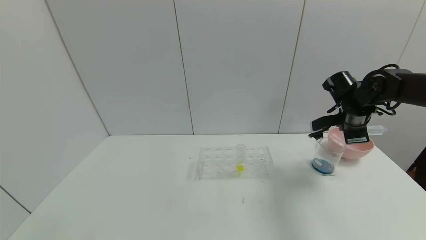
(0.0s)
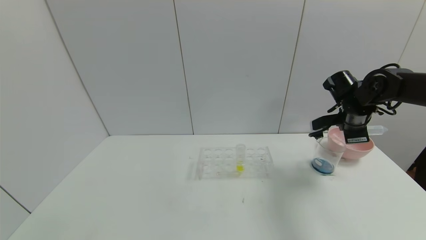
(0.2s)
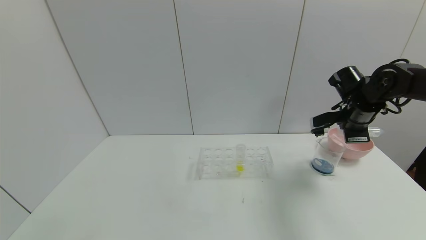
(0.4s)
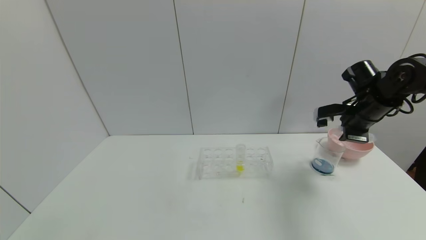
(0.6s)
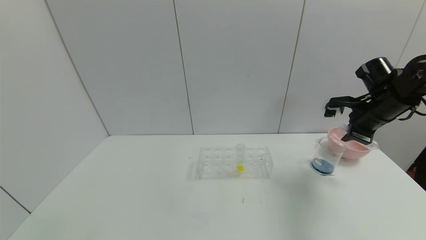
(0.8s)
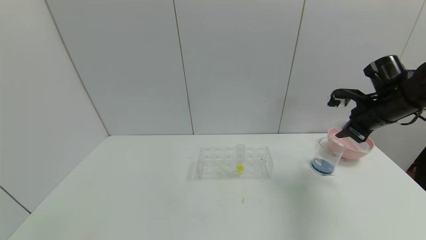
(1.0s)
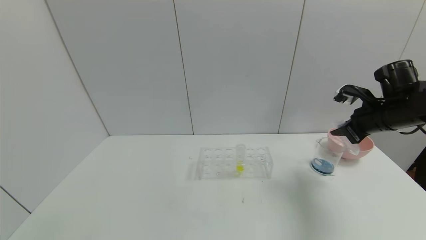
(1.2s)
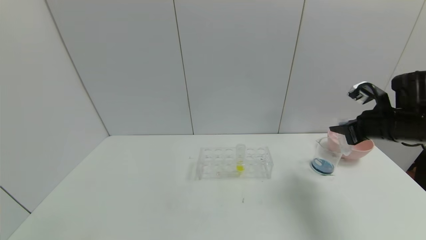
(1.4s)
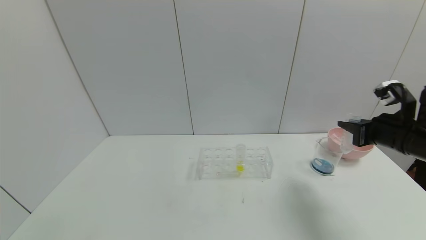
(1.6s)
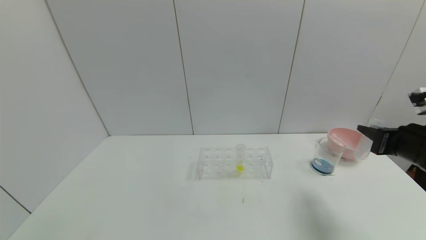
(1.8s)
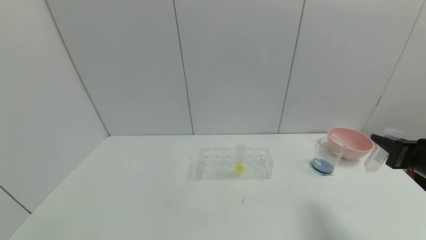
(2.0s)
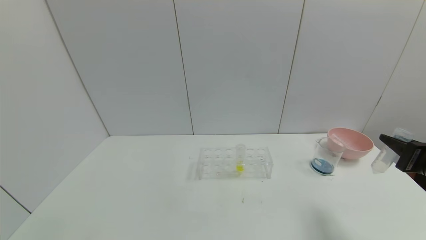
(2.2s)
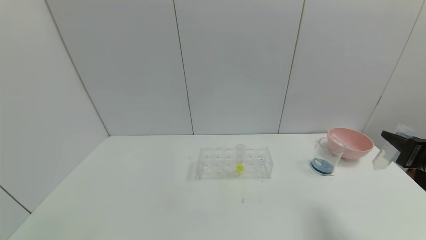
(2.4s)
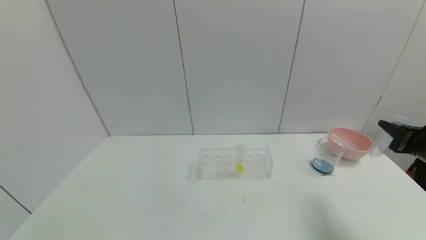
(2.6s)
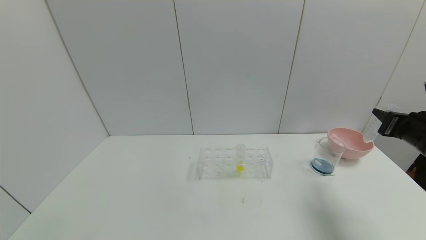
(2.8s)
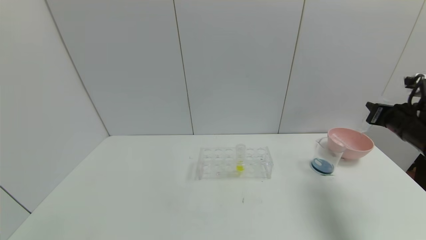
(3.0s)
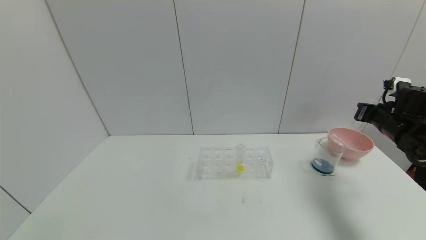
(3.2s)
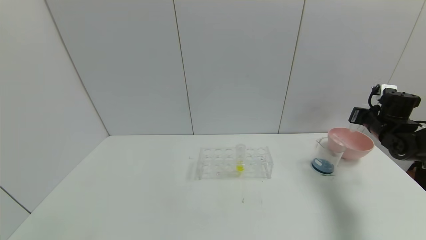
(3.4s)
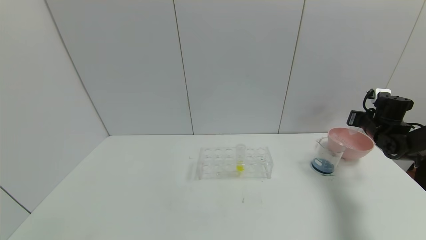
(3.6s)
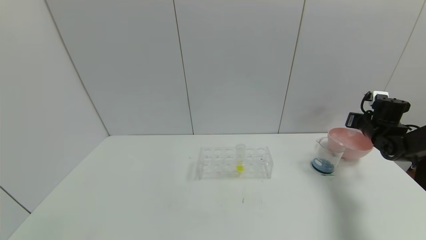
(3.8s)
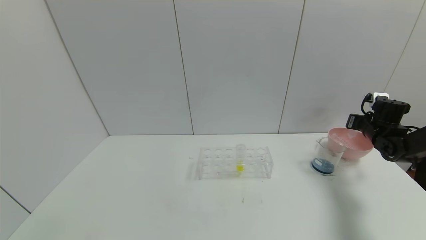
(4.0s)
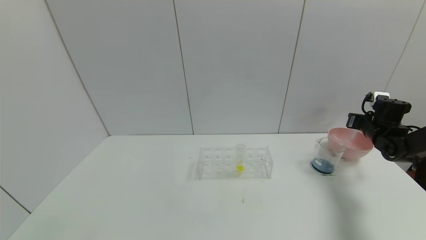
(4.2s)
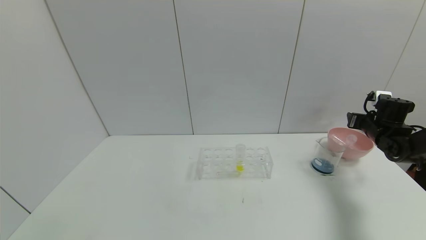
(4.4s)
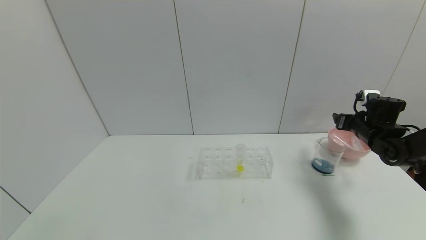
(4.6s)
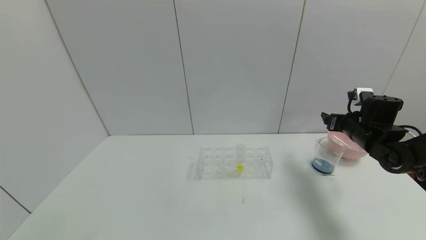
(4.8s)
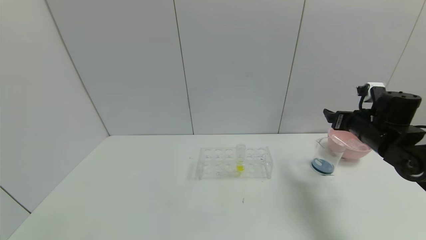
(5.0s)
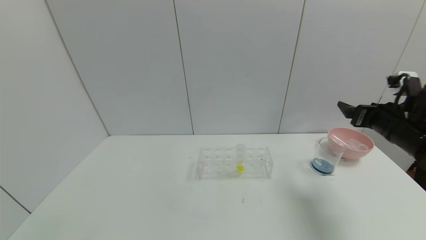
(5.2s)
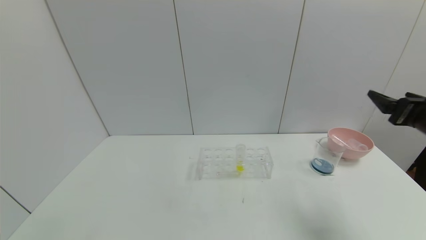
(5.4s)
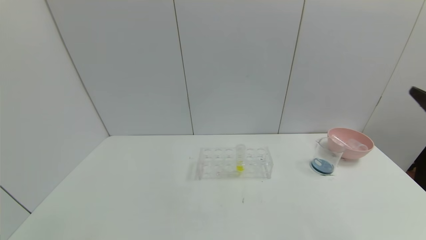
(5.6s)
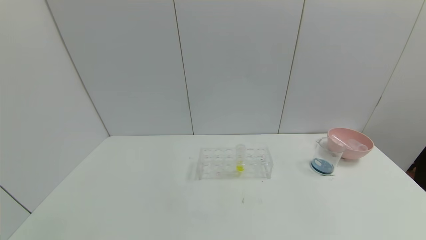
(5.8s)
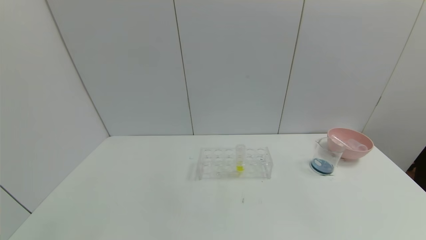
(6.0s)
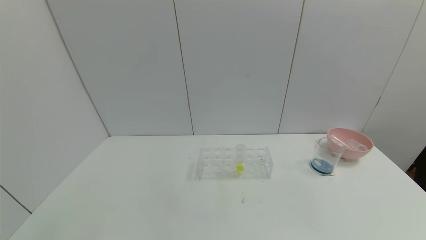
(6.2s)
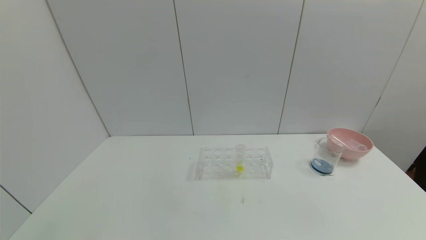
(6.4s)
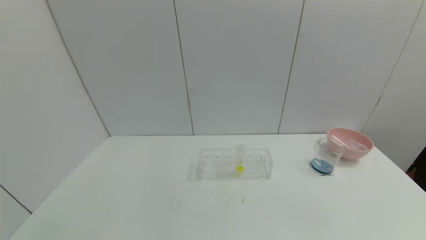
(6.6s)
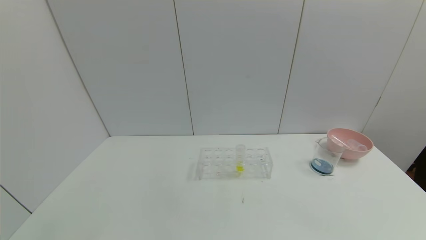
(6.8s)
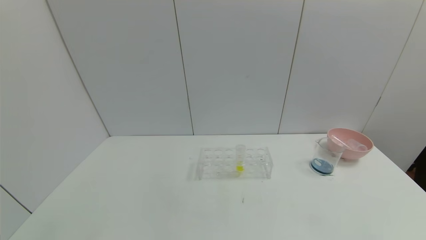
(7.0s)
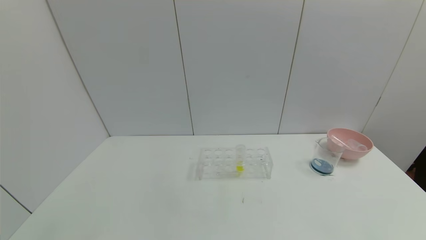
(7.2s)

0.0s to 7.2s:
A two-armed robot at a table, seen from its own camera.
Task of the whole recording: pick up the test tube with red pigment and the test tube with blue pigment by grippers and pour them into the container.
Step, 0.2s to 4.6s: Place the test tube into the bowl with the right gripper.
0.0s to 1.4s: The right gripper travels backward by roughly 10 cm.
1.4s to 2.8s: The right gripper shifts approximately 5 cm backward.
2.8s to 4.4s: The right gripper shifts about 20 cm forward and downward, and opens up.
4.4s to 5.8s: The right gripper shifts some 35 cm backward.

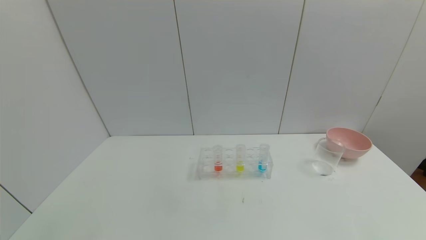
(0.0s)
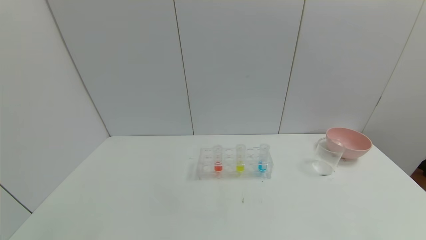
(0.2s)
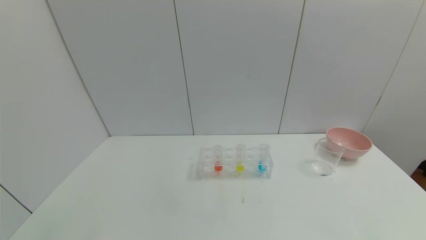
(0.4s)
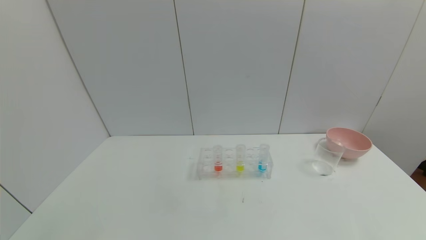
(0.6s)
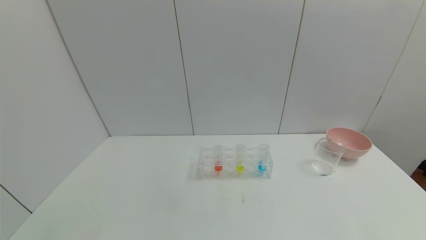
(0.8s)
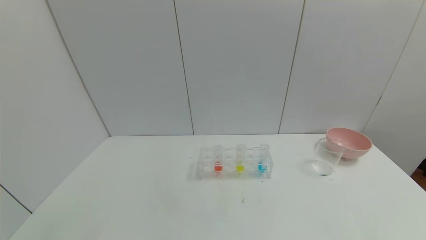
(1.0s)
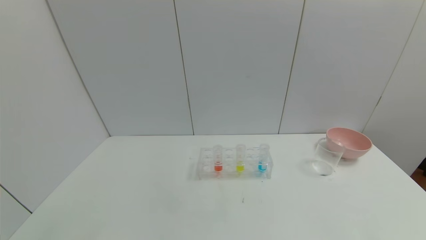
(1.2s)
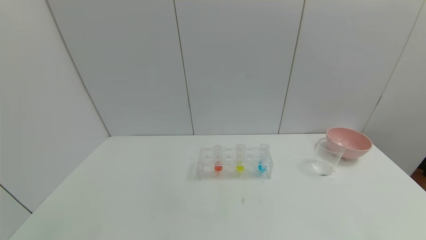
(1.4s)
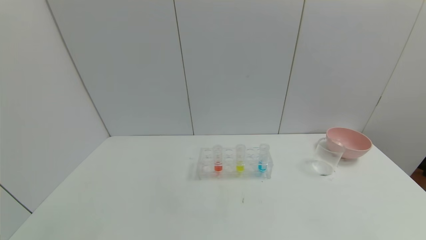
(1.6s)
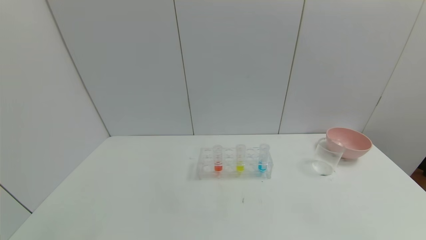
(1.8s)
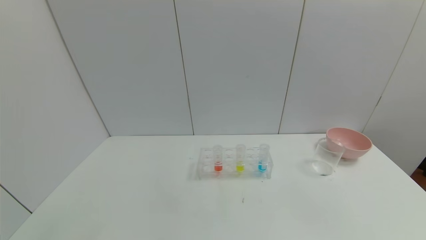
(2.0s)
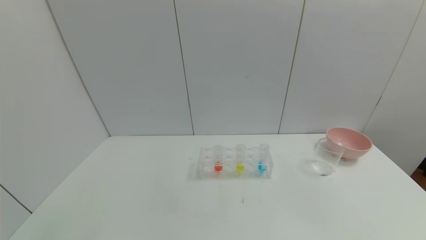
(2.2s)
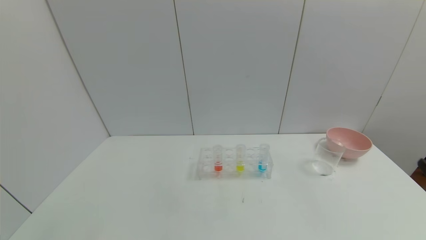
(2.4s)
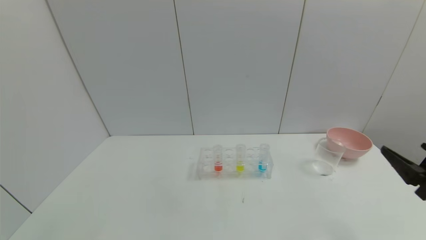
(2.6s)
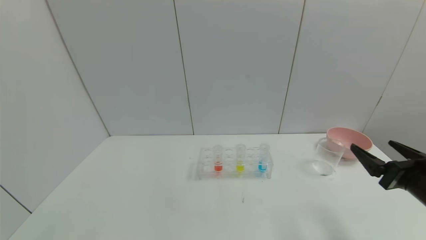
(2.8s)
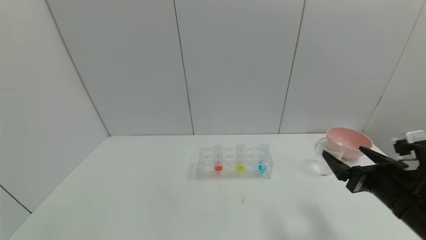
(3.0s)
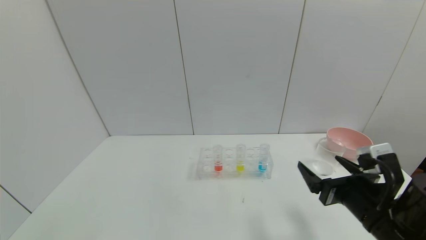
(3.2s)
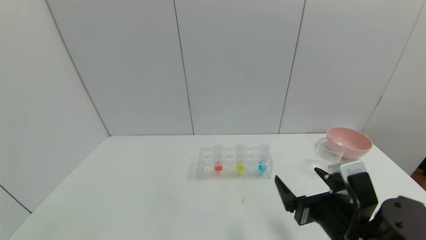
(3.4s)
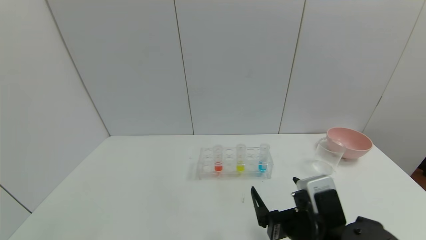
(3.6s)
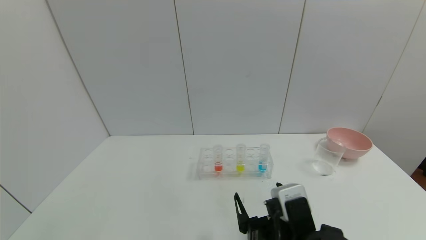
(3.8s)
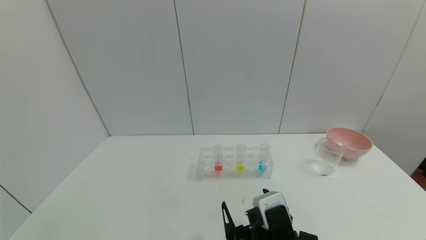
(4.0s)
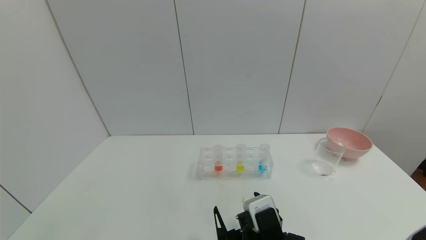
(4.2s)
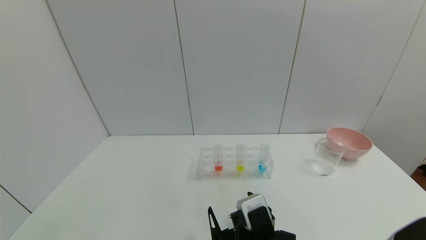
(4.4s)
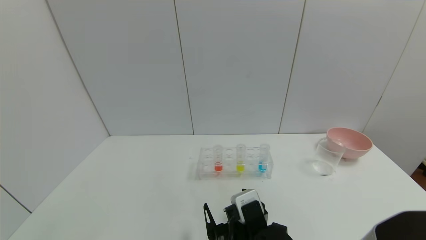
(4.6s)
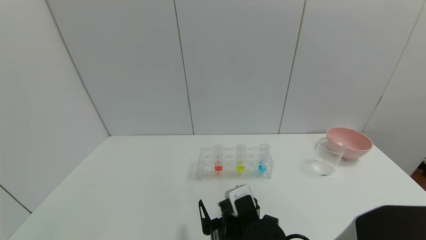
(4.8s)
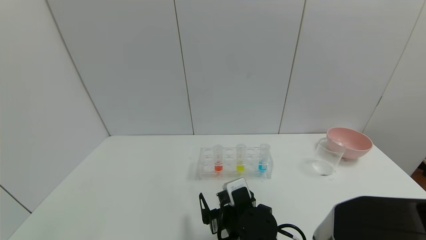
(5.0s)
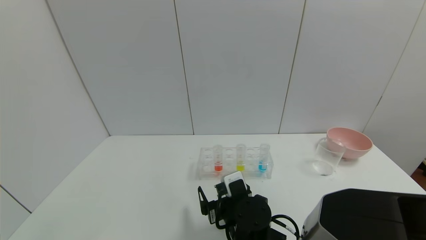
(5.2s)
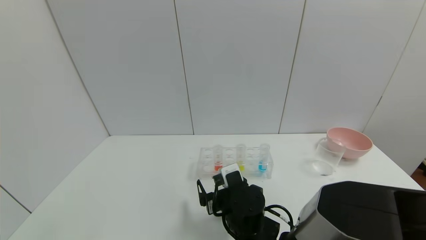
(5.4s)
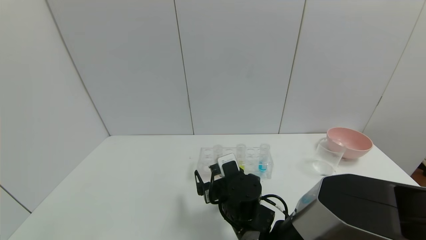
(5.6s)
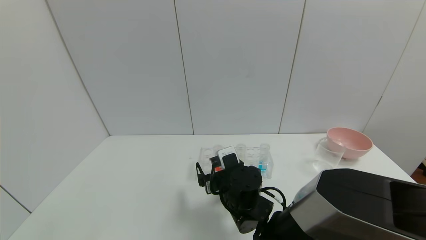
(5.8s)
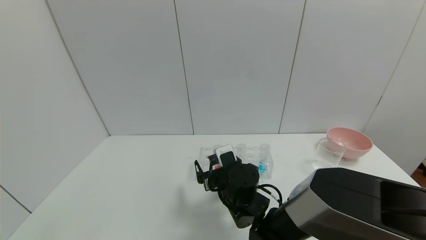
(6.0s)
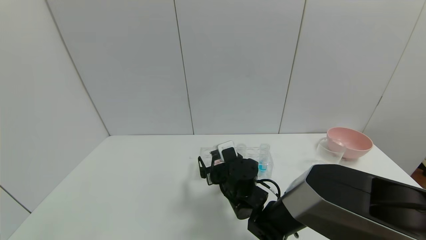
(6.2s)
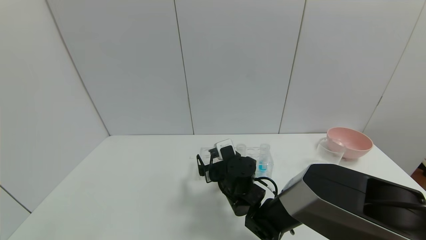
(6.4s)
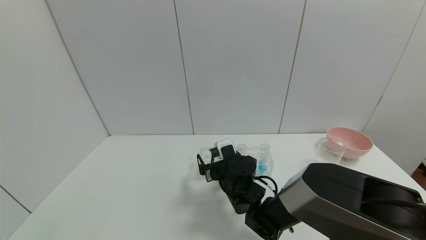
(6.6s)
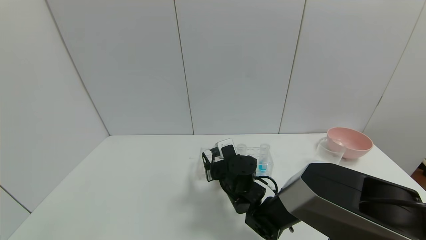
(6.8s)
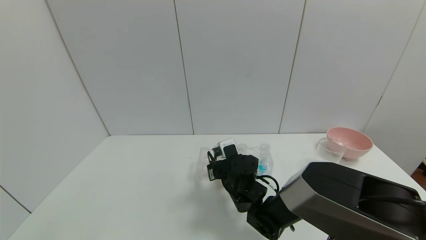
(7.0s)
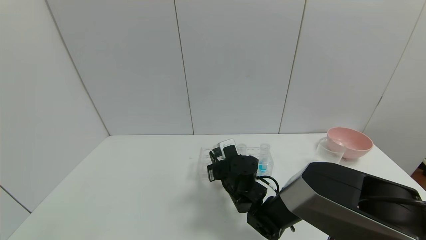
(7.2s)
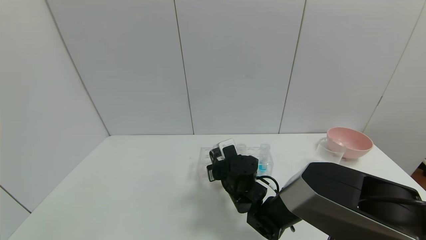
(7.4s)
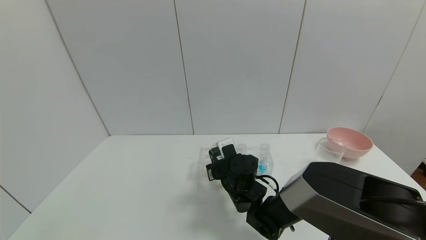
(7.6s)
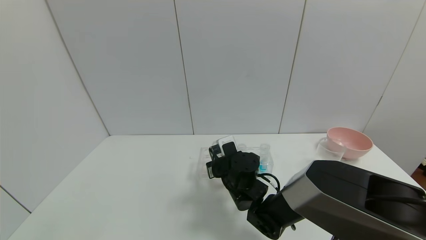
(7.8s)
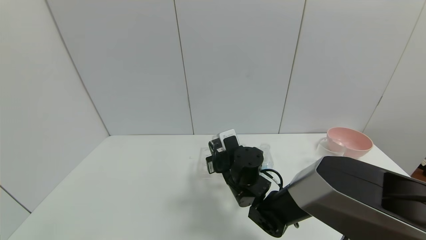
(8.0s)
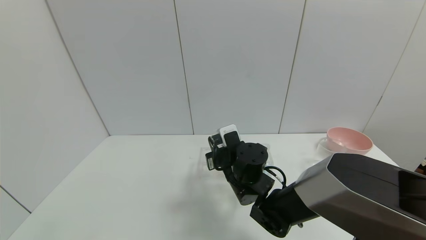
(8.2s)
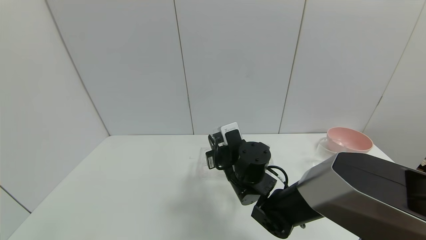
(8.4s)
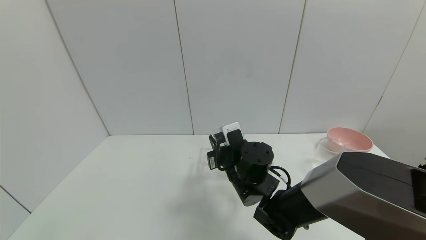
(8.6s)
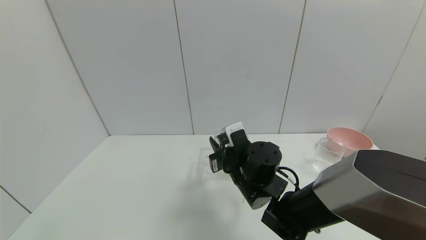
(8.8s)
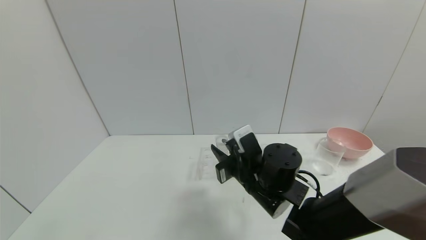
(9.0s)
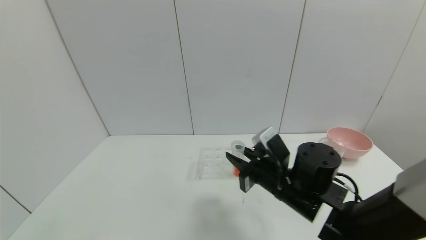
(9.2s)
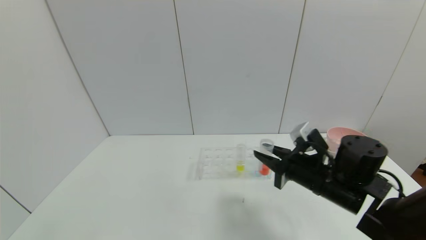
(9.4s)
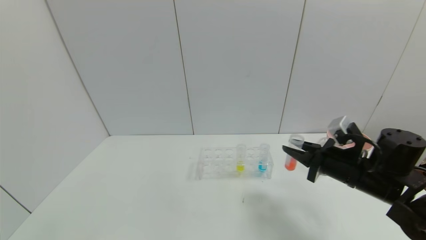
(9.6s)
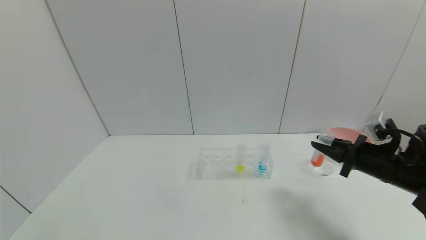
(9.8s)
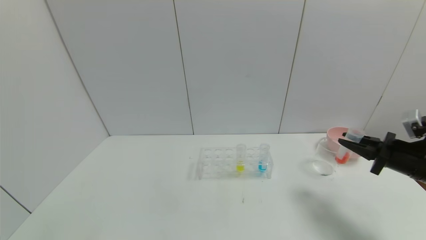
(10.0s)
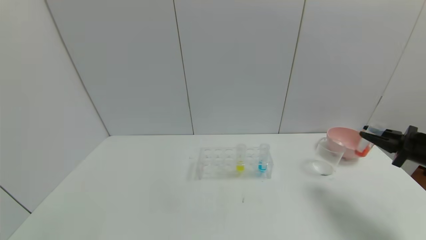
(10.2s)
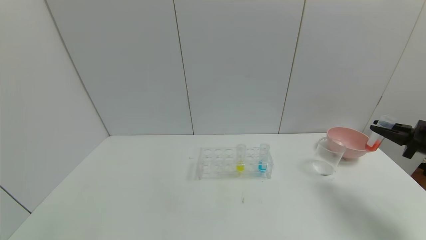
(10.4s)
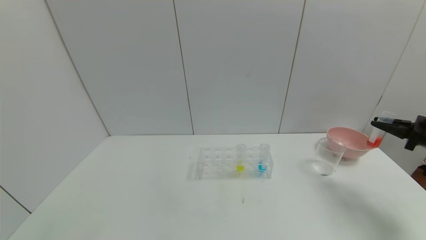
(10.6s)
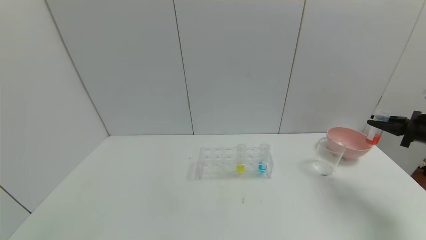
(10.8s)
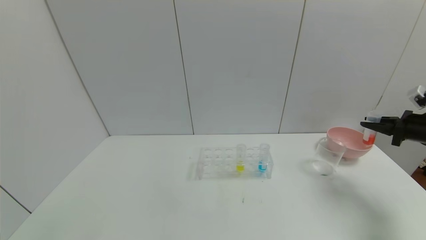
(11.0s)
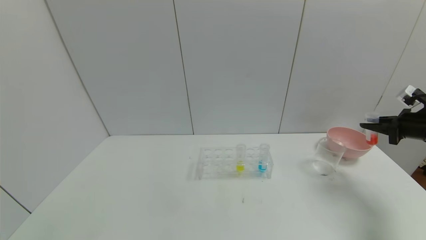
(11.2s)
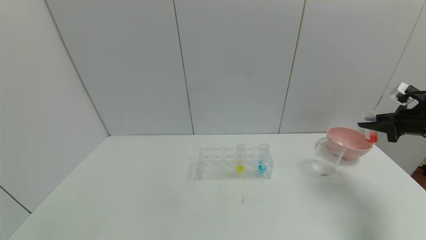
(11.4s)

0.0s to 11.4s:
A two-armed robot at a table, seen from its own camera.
Task of the whole recording: pick up the test tube with red pigment and the test tube with blue pigment by grippers and pour them into the container.
Step, 0.0s to 6.4s: Grasp the yellow reagent with the right gripper.
0.0s to 1.4s: Both grippers stay about where they are.
1.4s to 2.8s: The right gripper goes some 20 cm forward and upward.
2.8s to 4.2s: The right gripper is displaced to the left by some 25 cm.
4.2s to 5.6s: The right gripper heads forward, covering roughly 10 cm.
5.6s to 7.2s: The right gripper travels forward by about 5 cm, and closes its fingers.
7.2s to 8.6s: The right gripper shifts about 5 cm upward.
8.6s to 10.0s: The right gripper is displaced to the right by approximately 35 cm.
10.0s to 11.4s: The right gripper heads to the right, forward and upward, covering approximately 10 cm.
